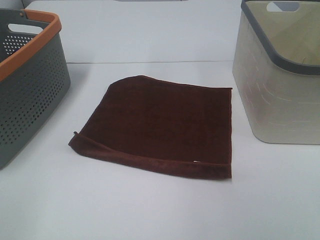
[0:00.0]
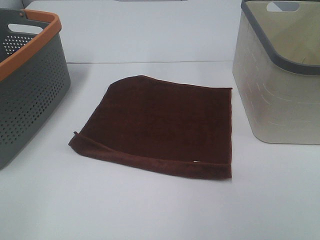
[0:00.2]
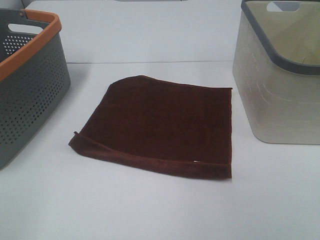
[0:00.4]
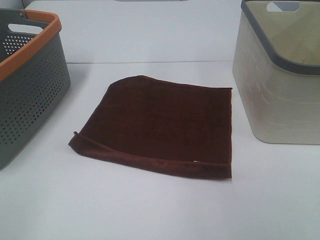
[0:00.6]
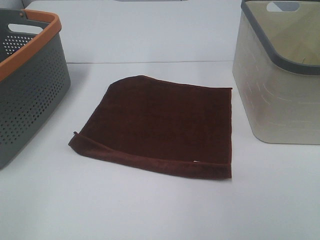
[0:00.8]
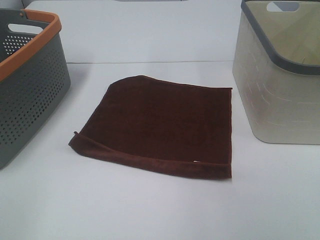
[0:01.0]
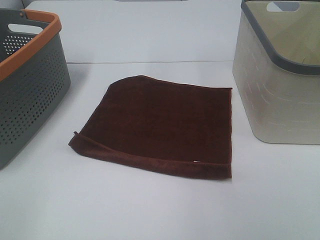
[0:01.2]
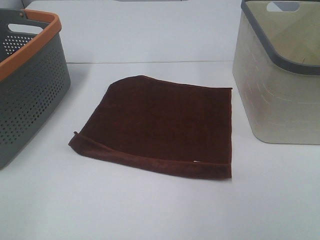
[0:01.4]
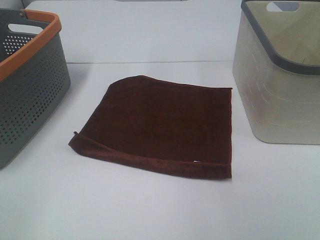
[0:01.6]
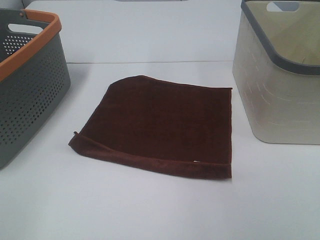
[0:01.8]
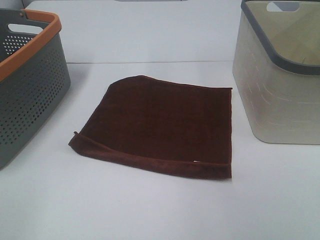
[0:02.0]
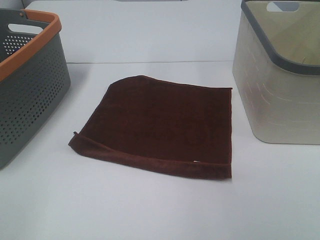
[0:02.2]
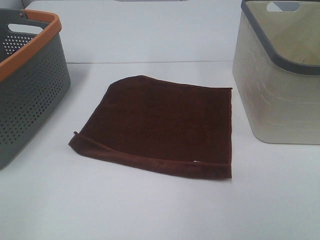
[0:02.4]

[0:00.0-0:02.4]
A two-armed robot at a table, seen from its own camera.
Task of the whole recording: Remove the towel and place it.
0:01.2 to 0:02.4: Both grippers stay put.

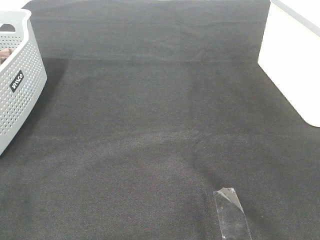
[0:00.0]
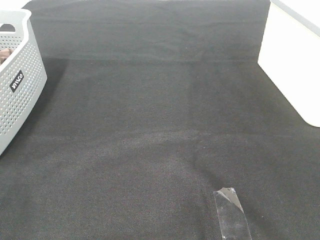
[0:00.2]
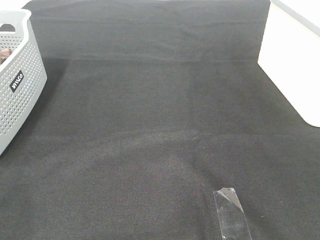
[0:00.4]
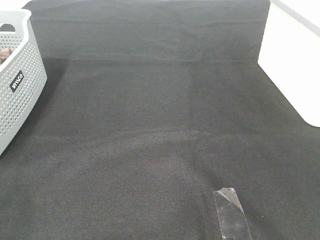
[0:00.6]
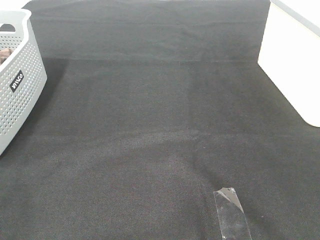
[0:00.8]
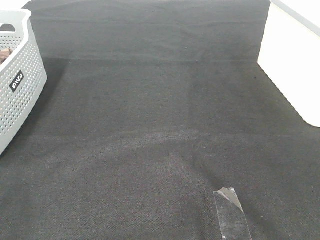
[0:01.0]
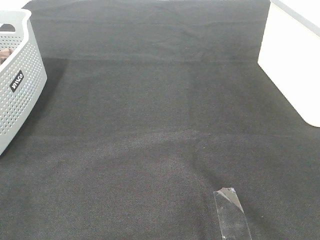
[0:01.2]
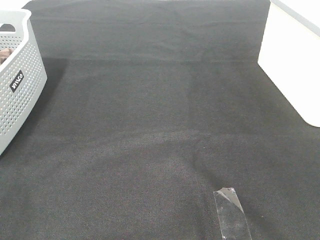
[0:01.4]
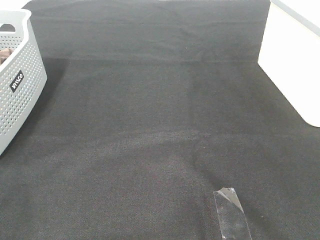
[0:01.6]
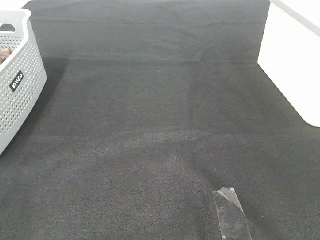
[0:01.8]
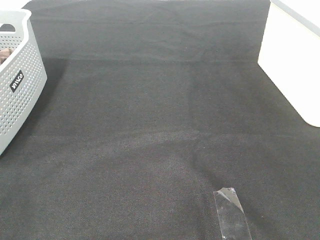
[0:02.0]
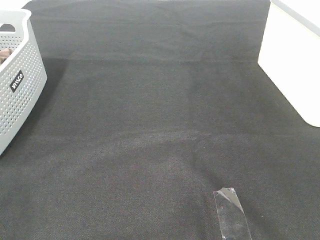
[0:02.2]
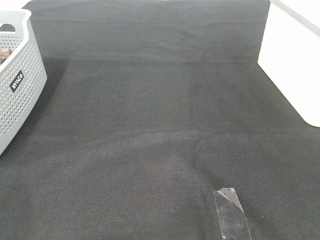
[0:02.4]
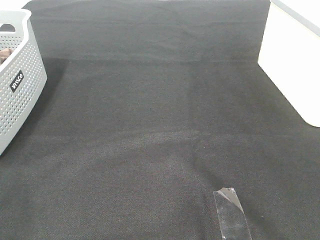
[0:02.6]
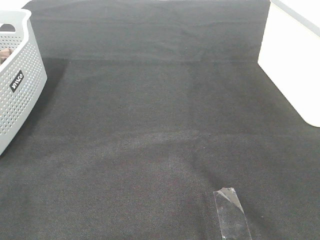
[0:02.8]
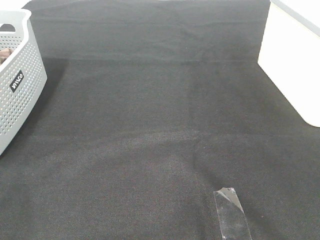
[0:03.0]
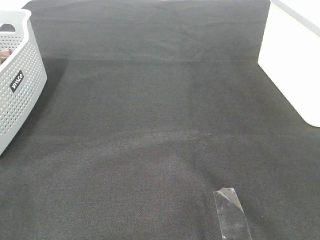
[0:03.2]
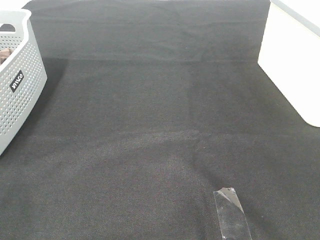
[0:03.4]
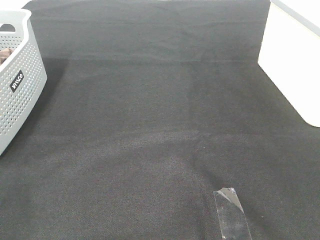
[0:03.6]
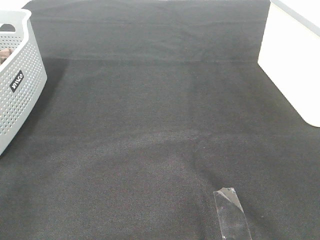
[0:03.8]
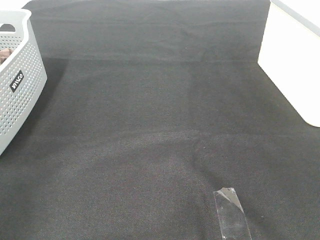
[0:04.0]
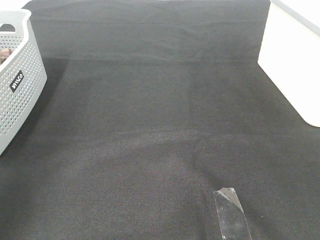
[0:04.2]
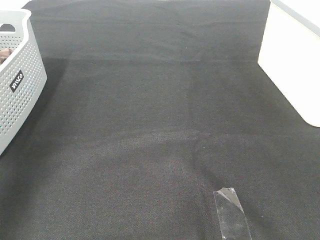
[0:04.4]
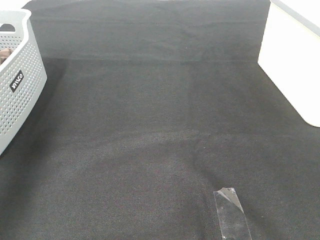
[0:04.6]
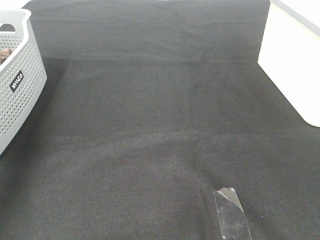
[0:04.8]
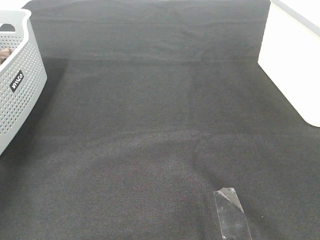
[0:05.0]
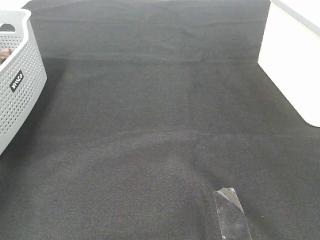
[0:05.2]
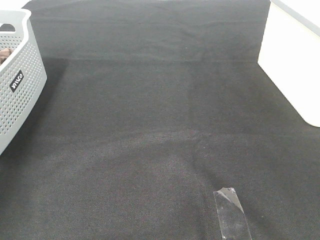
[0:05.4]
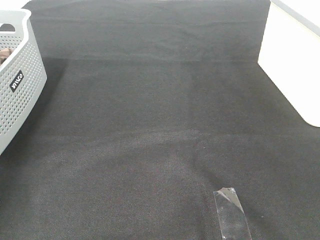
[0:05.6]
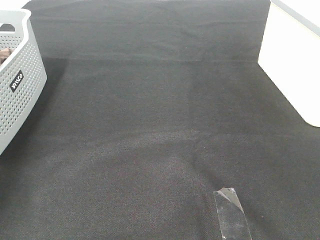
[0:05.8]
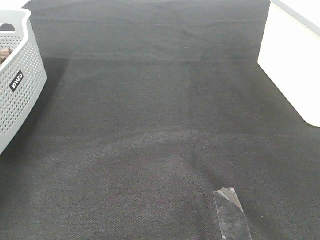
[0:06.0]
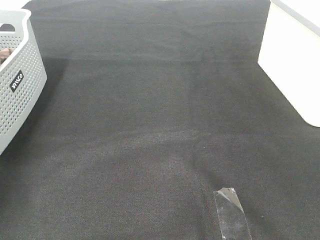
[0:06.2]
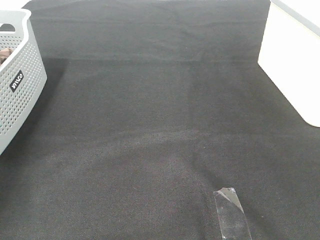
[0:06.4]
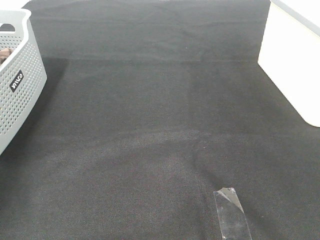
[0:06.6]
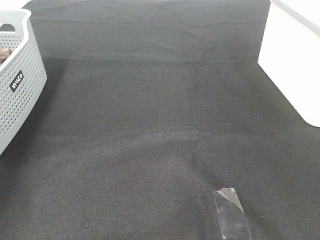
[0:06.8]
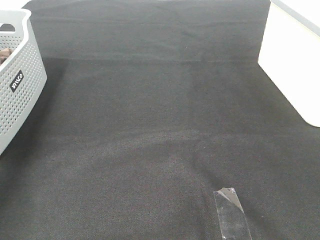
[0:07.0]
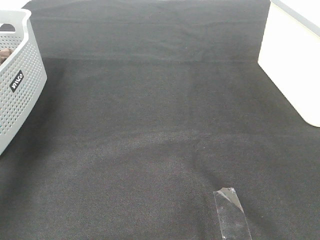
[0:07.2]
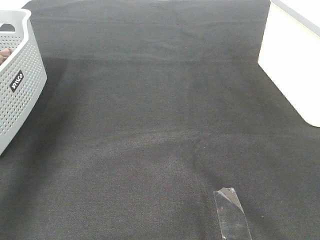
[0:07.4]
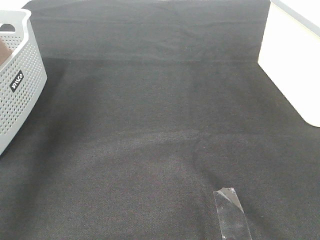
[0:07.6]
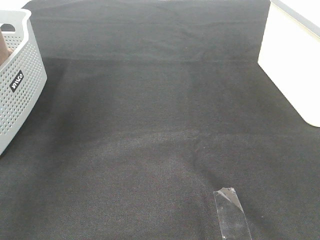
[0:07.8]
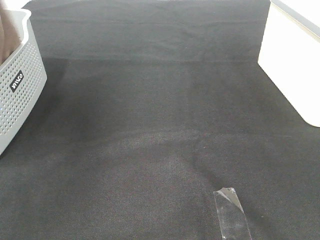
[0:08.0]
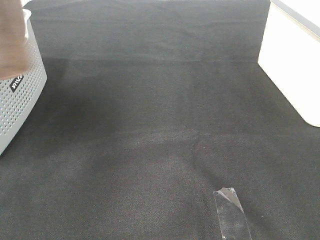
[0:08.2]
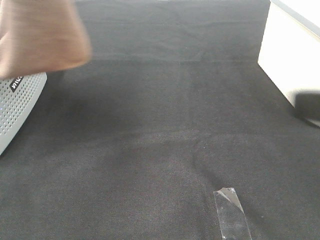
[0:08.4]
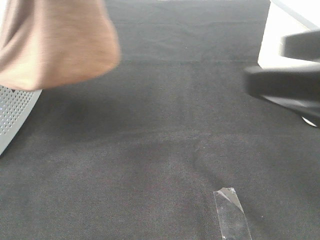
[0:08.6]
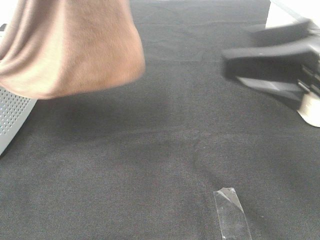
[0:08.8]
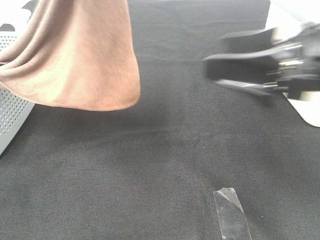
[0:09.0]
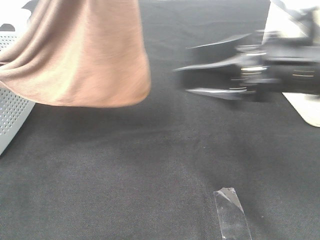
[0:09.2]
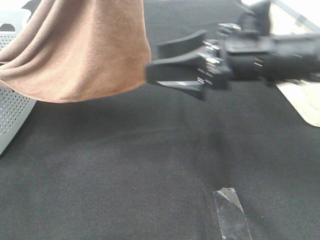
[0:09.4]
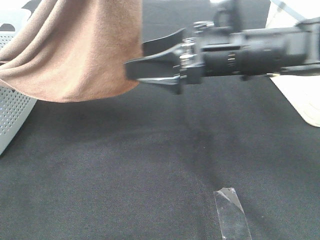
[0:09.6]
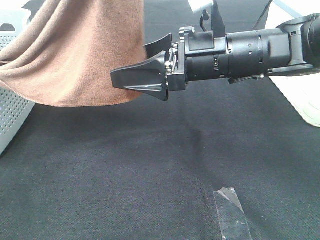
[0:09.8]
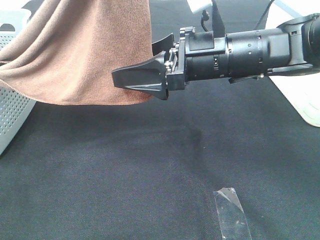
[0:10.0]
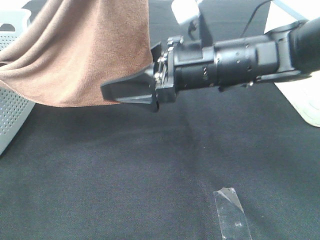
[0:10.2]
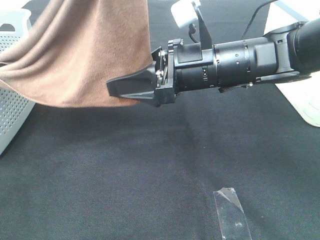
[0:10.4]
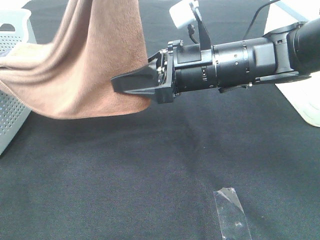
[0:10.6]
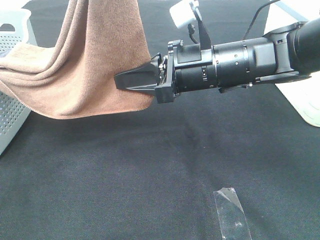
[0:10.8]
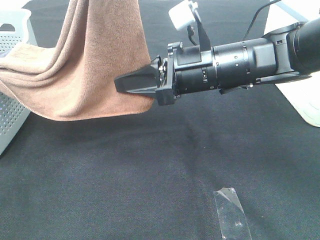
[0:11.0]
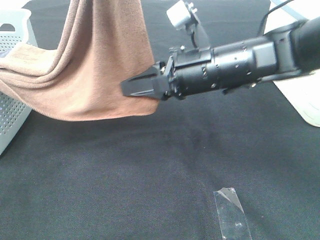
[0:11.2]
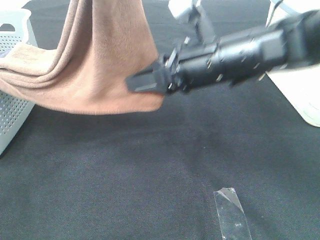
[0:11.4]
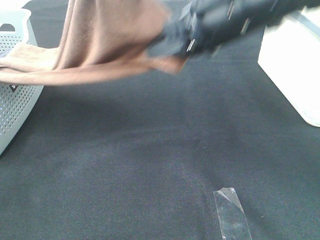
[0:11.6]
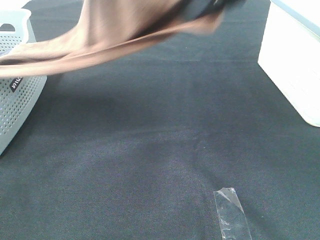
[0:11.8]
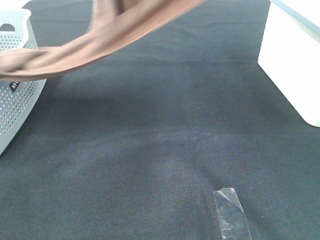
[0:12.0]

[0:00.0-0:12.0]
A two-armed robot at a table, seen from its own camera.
Task of the whole recording: Remove the towel and place it.
Step, 0:07.8 to 0:10.8: Right hand: grab a corner of the brown towel and straighten it.
0:00.0 to 0:03.0: Both grippers stay put.
0:03.0 to 0:04.4: The left gripper is displaced forward and upward by some 30 cm.
0:06.0 to 0:07.6: The left gripper goes about 30 cm upward, to the right and backward.
0:07.6 to 0:09.0: The right gripper is displaced forward and to the left by some 25 cm. The left gripper is displaced to the right by some 20 cm.
0:09.0 to 0:10.4: The right gripper is displaced to the left and forward by about 15 cm, and closes its fingers.
0:10.4 to 0:12.0: The right gripper is displaced upward by some 25 cm, and closes. The left gripper changes place by approximately 5 cm.

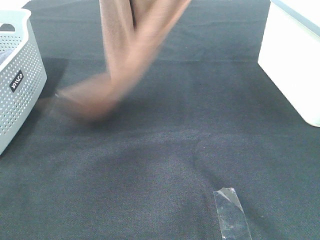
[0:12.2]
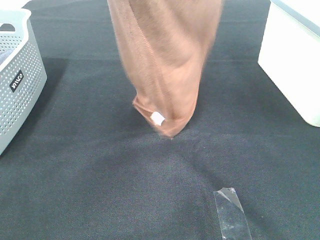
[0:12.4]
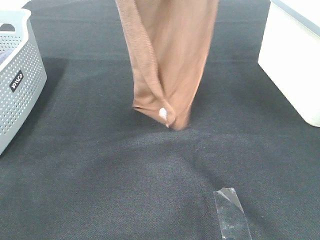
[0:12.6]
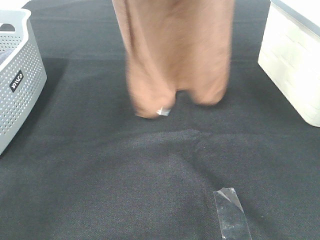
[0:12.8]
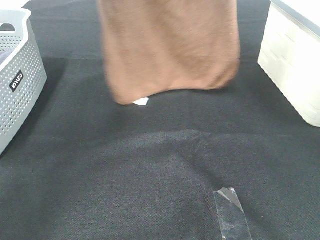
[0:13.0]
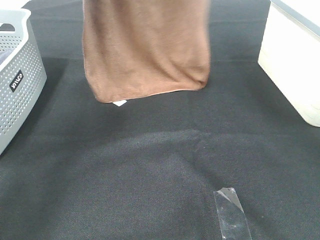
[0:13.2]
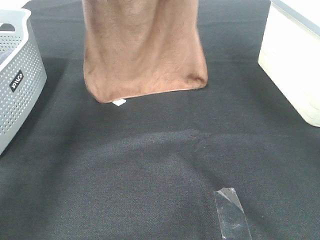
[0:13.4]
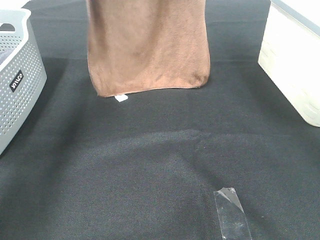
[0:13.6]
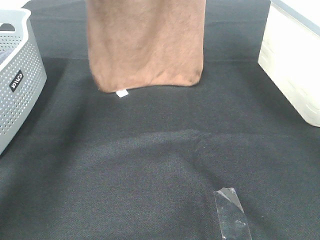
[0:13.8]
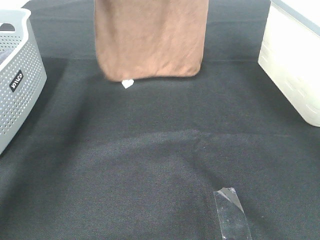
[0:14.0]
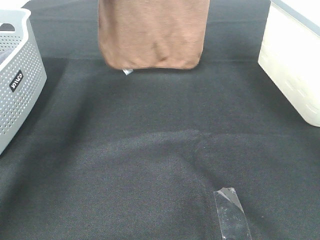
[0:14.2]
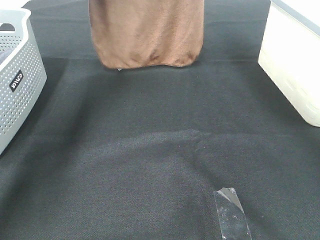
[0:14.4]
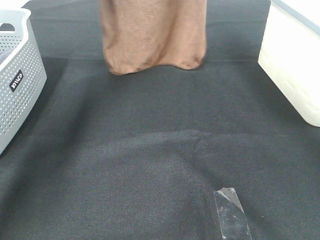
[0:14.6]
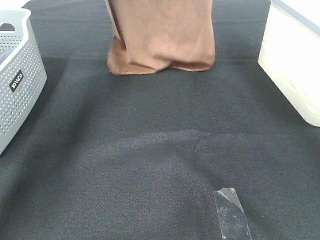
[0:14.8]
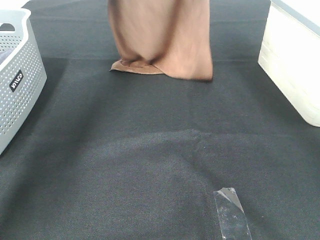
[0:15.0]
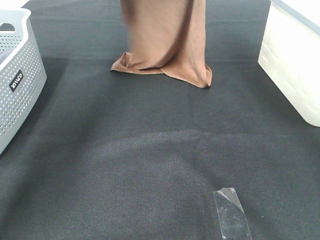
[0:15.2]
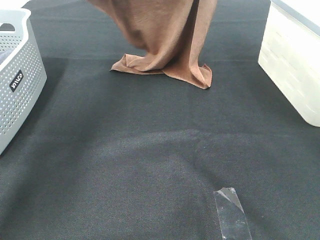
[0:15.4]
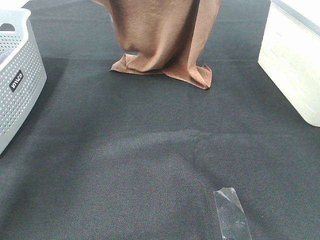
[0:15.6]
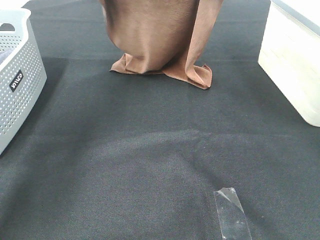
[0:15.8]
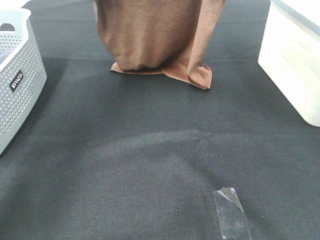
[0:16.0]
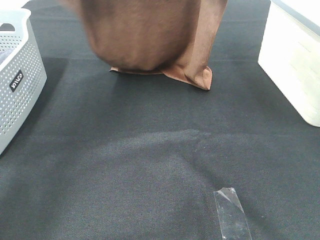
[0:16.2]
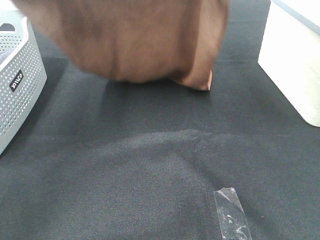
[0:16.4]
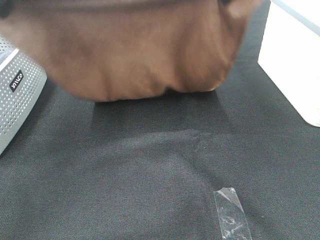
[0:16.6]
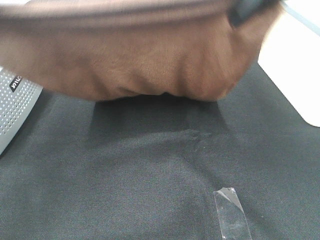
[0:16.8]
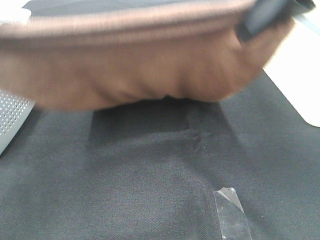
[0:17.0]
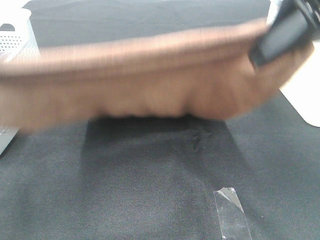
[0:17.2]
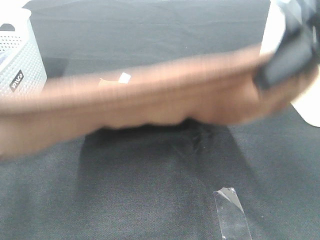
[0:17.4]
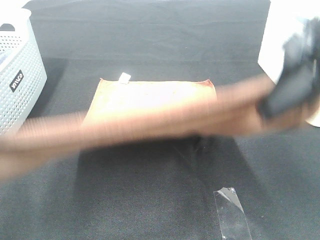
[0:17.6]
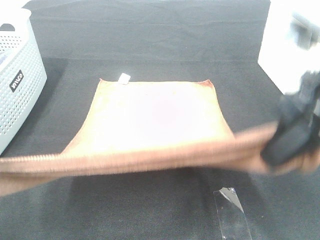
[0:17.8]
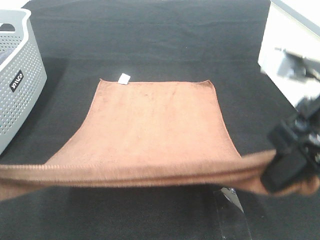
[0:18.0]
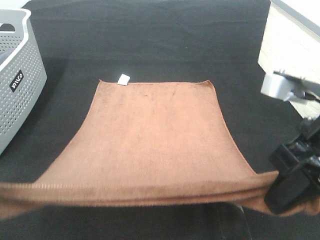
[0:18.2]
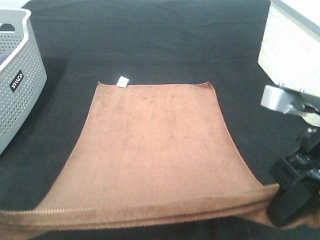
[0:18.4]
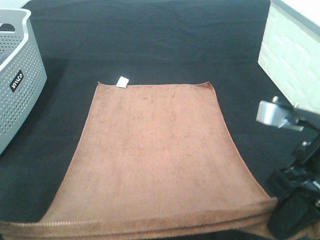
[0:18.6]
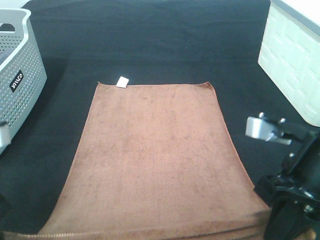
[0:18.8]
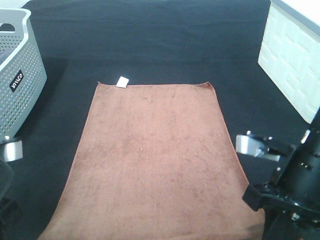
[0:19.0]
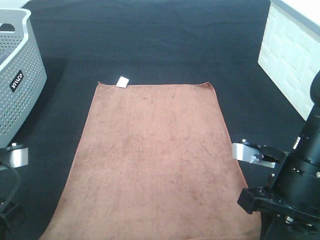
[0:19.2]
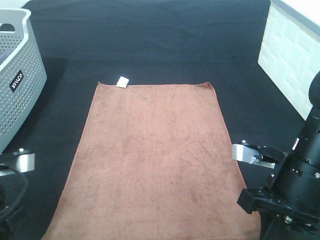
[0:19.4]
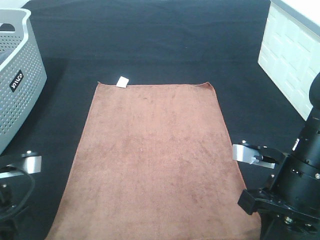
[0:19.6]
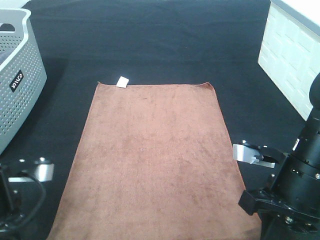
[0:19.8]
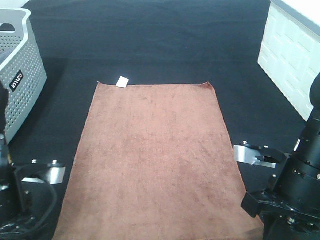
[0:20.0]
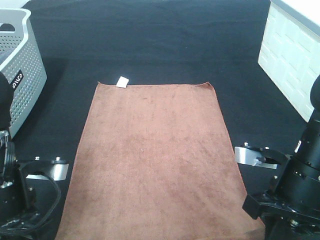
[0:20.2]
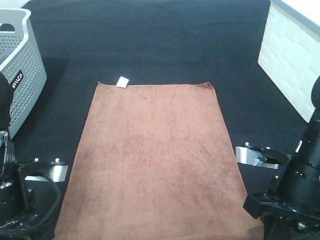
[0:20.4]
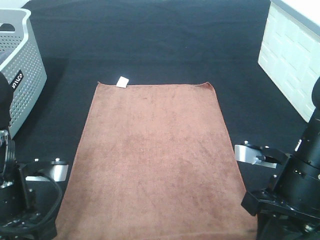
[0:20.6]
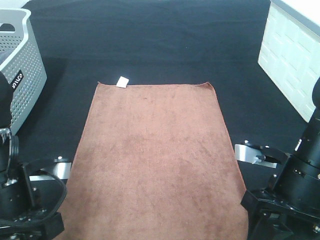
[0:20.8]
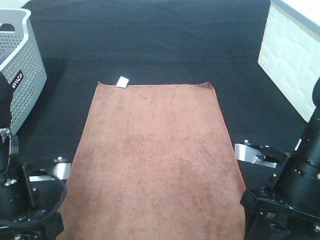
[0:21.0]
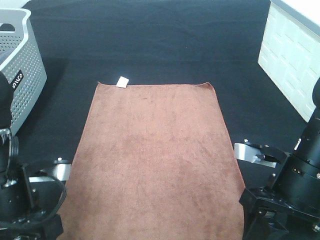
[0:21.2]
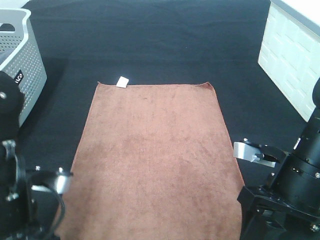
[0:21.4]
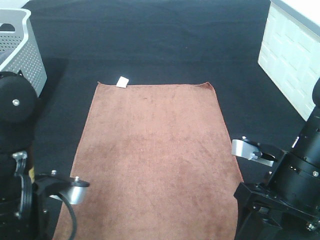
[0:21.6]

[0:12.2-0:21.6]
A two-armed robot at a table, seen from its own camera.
Task of the whole recording: Remove the towel and place it.
Step, 0:12.2 to 0:17.4: Left hand: spread the brown towel flat on the table.
Step, 0:12.2 to 0:17.4: Right hand: spread the brown towel flat on the table.
0:12.2 to 0:13.8: The two grippers go roughly 15 cm forward.
0:13.8 to 0:15.4: The left gripper goes approximately 10 cm downward, while the right gripper shifts by about 5 cm.
0:15.4 to 0:17.0: The grippers both shift backward by roughly 25 cm.
0:17.0 to 0:18.4: Both grippers move downward and backward, some 15 cm.
0:18.4 to 0:20.0: The left gripper is displaced downward and forward by roughly 10 cm; the right gripper heads downward, covering approximately 10 cm.
0:20.0 to 0:21.6: The left gripper ends up about 5 cm from where it was, and opens its fingers. The right gripper opens its fingers.
